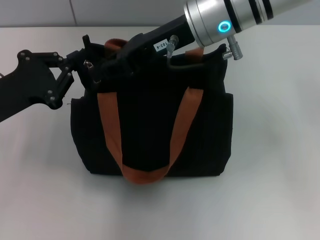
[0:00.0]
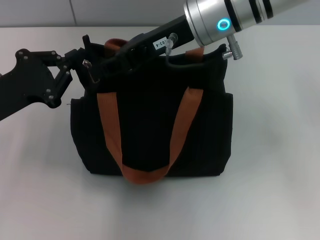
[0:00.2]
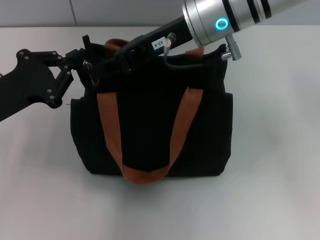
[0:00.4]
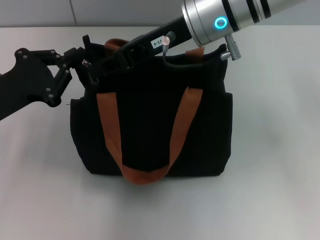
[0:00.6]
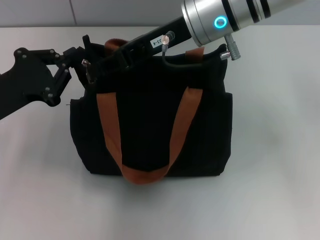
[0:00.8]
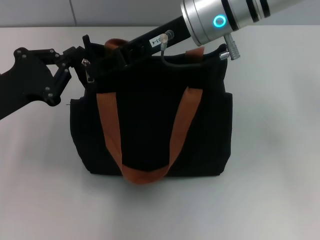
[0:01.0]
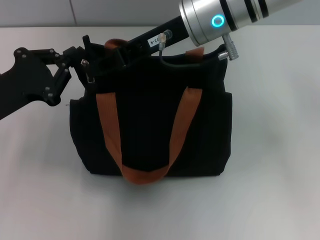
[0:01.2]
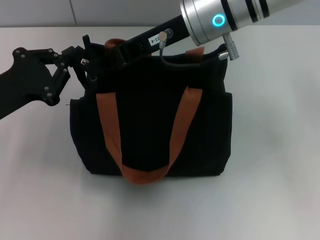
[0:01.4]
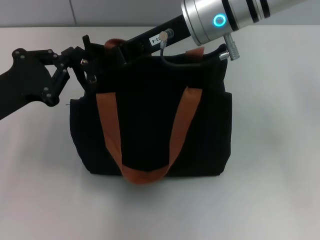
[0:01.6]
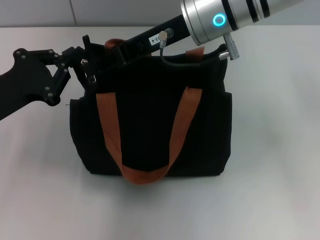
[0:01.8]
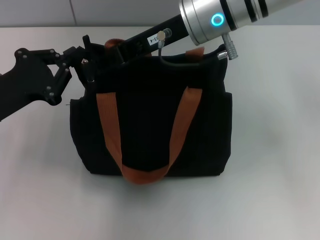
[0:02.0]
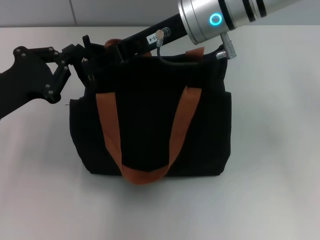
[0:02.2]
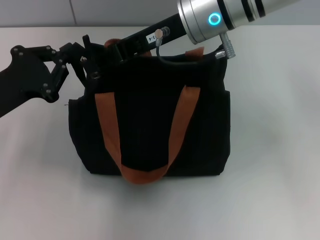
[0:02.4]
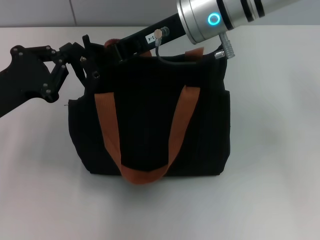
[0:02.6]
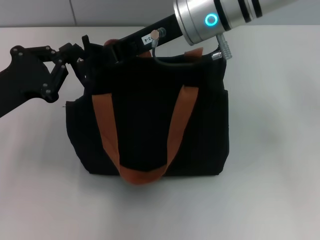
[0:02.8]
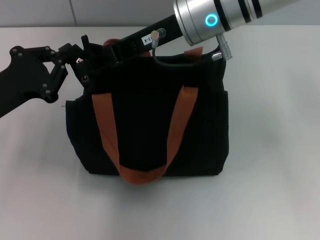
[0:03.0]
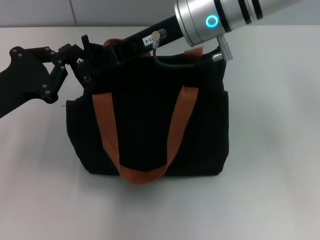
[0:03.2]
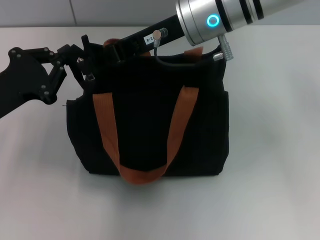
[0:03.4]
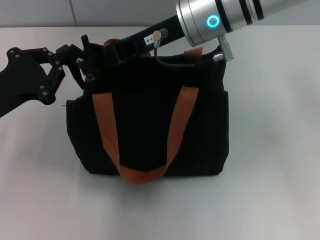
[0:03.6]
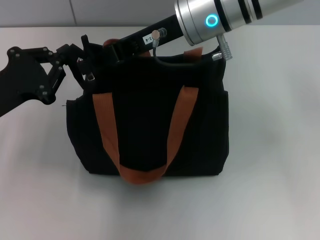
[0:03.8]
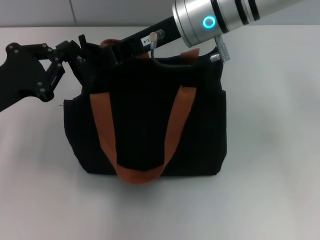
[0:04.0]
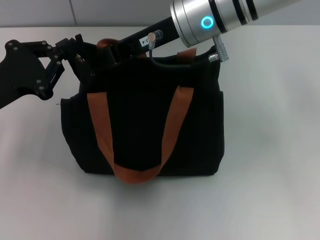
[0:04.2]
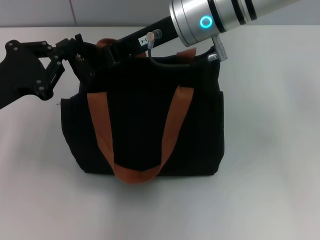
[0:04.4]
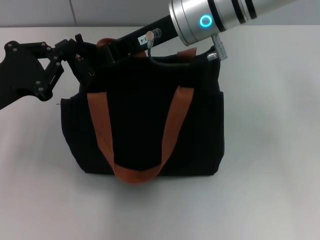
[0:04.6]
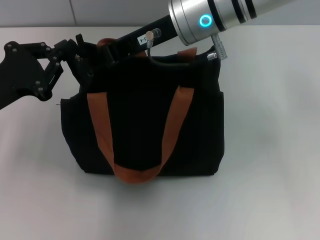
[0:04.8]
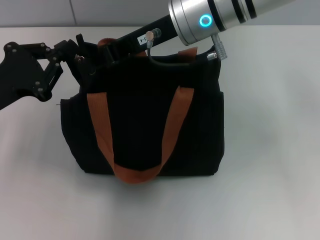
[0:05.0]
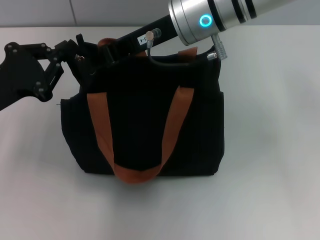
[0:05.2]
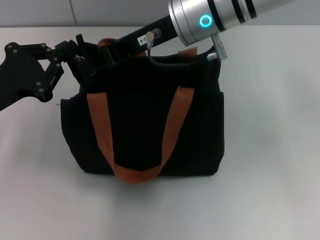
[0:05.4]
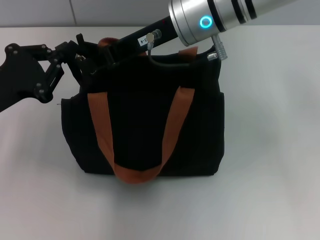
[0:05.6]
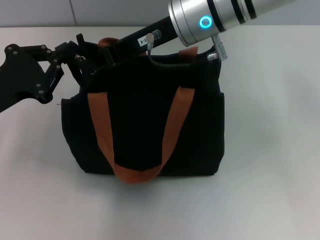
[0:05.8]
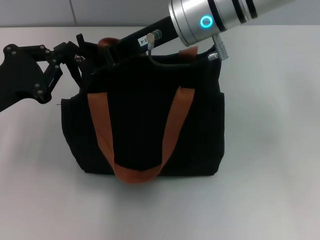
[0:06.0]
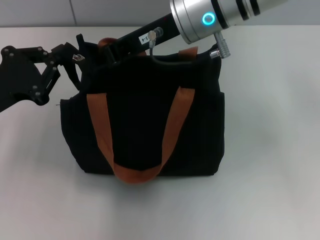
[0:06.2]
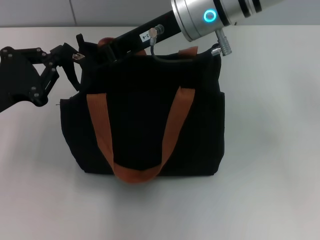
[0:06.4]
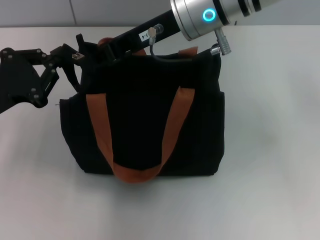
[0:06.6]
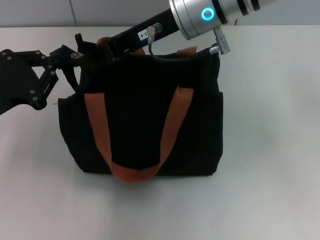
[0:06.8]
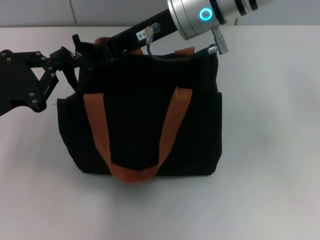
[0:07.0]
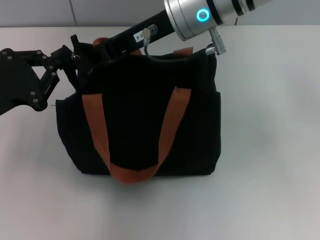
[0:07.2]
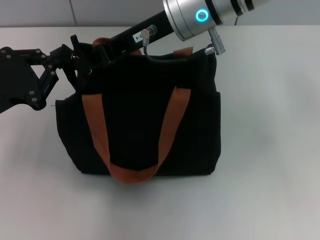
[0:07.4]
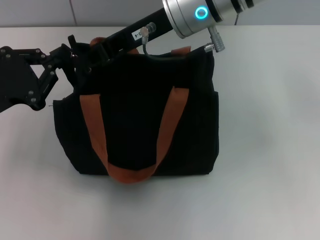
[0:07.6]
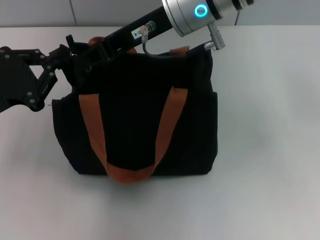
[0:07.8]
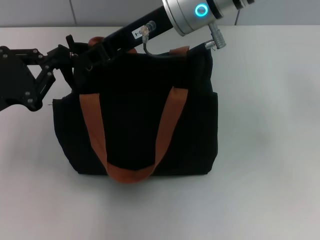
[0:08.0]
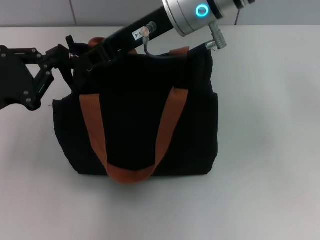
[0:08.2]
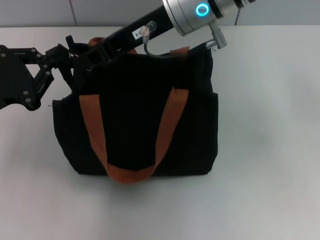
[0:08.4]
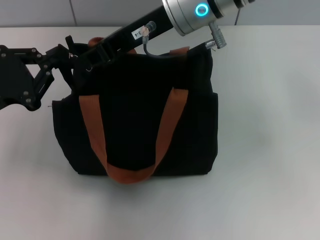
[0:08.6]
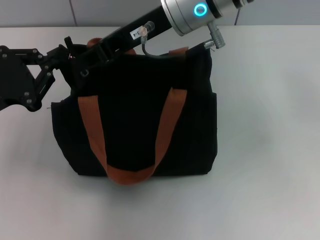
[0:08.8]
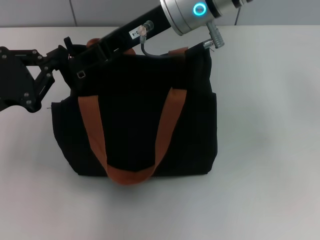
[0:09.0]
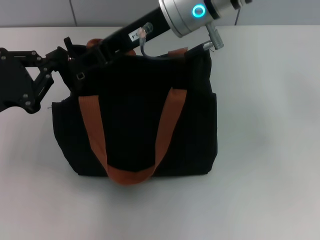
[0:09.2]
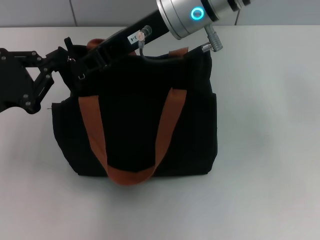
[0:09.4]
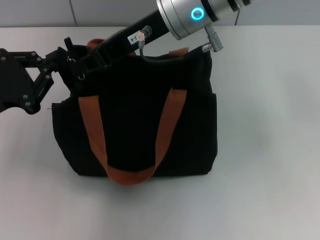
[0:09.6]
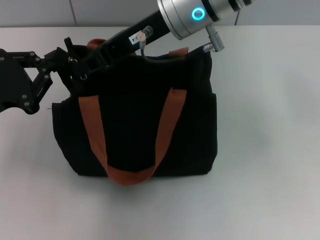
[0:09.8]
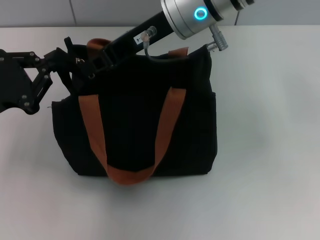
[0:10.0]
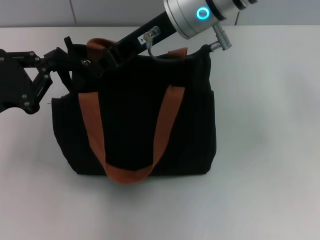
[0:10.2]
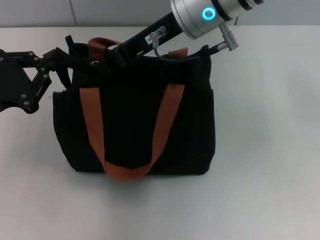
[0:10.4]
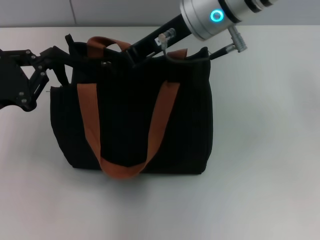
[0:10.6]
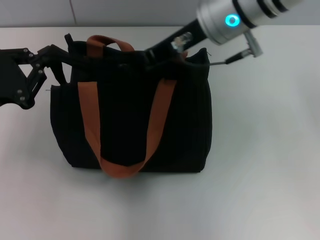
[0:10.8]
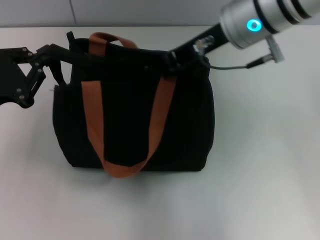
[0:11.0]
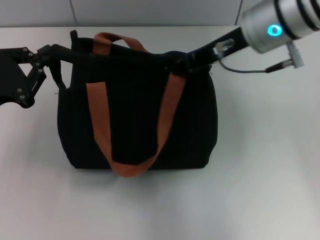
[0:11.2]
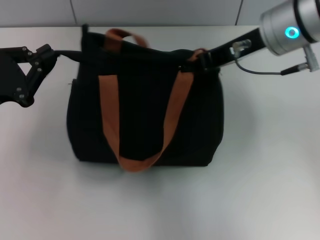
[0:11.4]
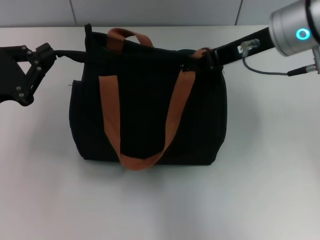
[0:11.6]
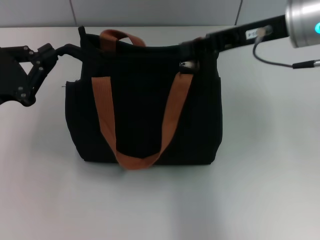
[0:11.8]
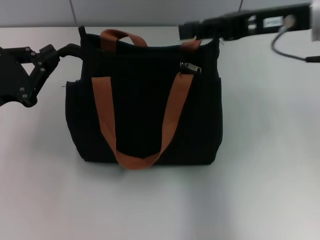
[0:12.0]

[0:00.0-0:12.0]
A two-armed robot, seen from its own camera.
Step, 0:00.0 to 0:11.8: Pull up the zipper with your right hand.
0:00.0 to 0:01.6: The grippers make only small movements.
0:01.6 to 0:06.0: Both grippers stay about where they are.
0:06.0 to 0:07.6: The grippers make only small movements.
0:07.6 to 0:09.0: The two grippers keep their place.
0:09.0 to 0:10.4: There are only small adjustments of the grippers.
0:10.4 to 0:12.0: The right gripper travels to the right by roughly 15 cm.

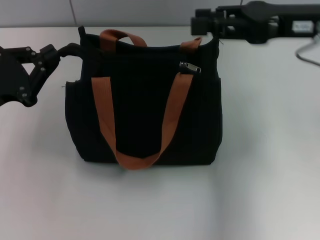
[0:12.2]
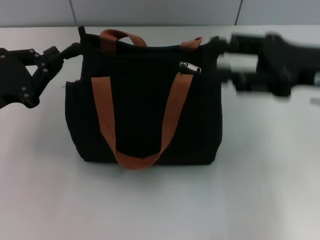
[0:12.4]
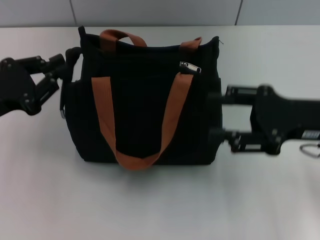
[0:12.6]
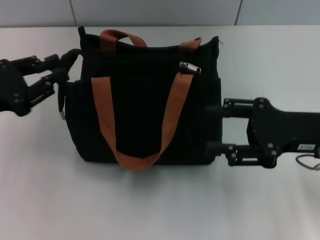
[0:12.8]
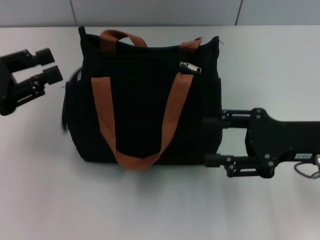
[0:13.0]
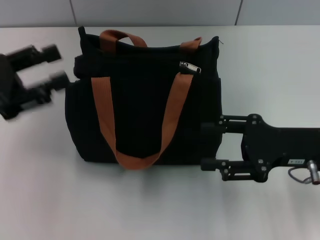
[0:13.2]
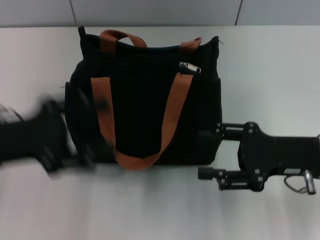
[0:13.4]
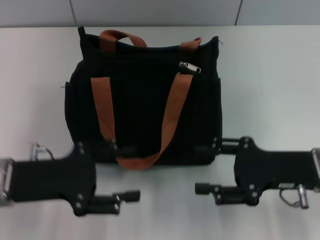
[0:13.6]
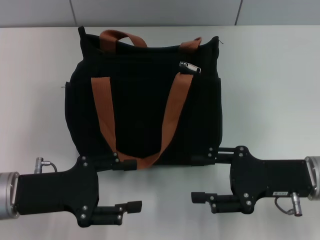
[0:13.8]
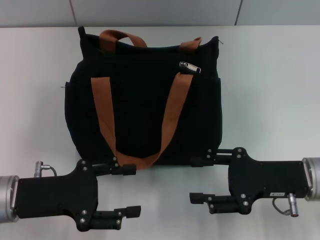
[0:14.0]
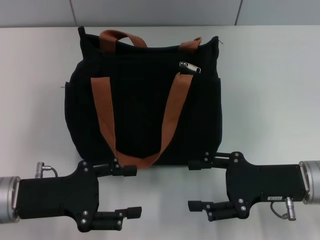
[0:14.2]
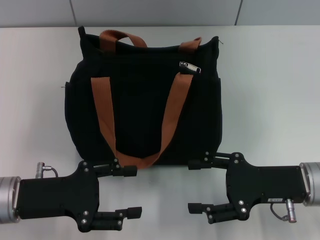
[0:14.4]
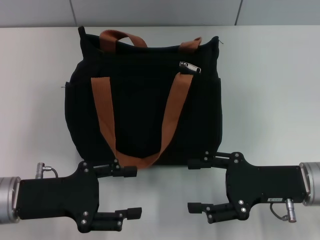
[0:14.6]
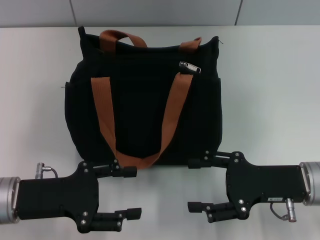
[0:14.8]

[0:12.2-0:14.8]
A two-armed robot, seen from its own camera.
Step, 0:12.2 to 0:13.0: Grab the zipper with your left hand.
0:12.2 to 0:13.4: The right gripper travels downward and backward by about 15 cm, and opens its fingers. Meanwhile the left gripper opens.
0:13.4 to 0:14.8: The left gripper moves downward, approximately 5 cm.
